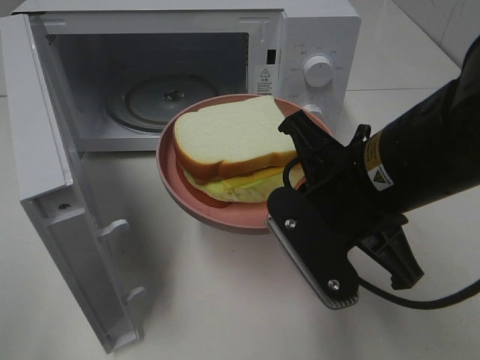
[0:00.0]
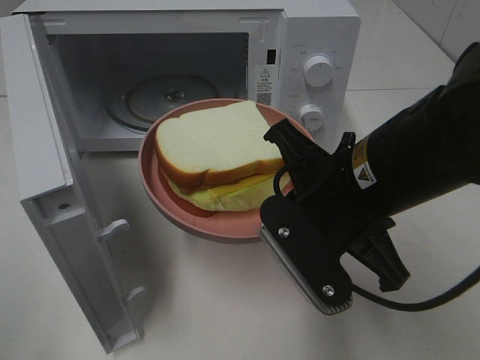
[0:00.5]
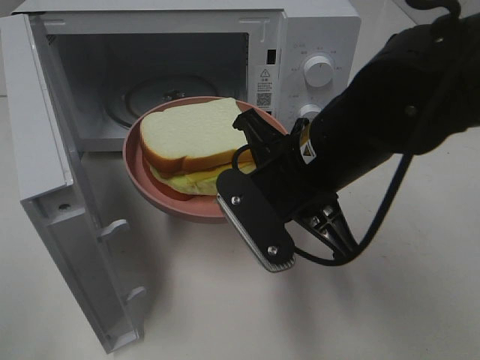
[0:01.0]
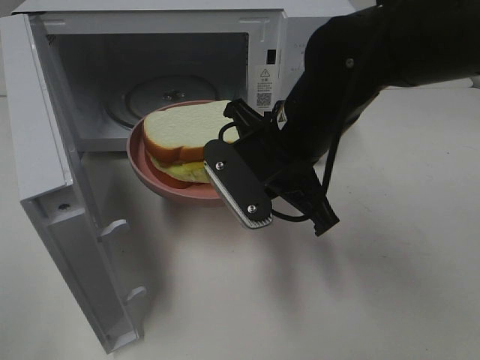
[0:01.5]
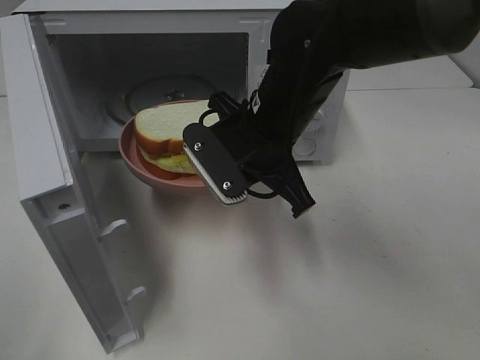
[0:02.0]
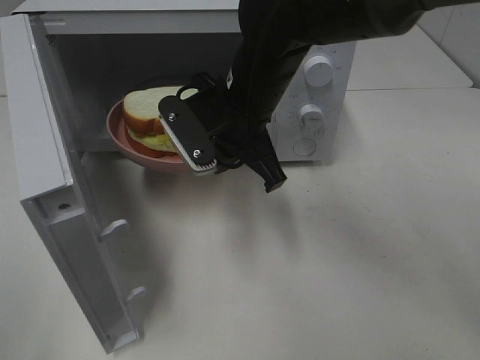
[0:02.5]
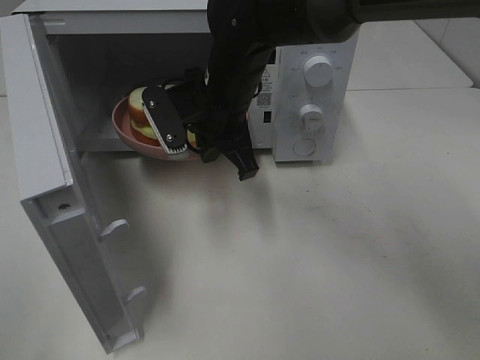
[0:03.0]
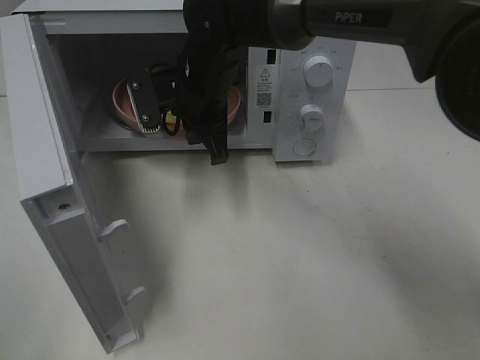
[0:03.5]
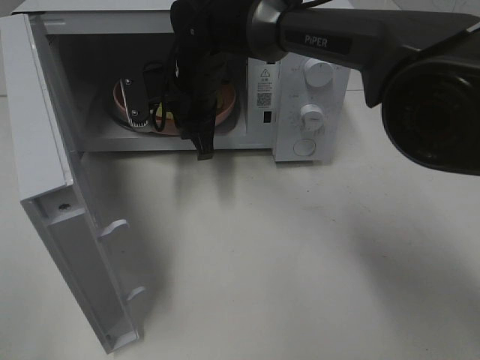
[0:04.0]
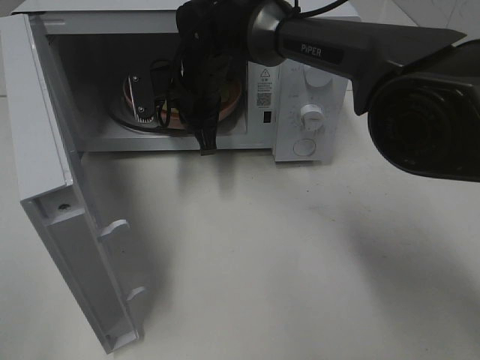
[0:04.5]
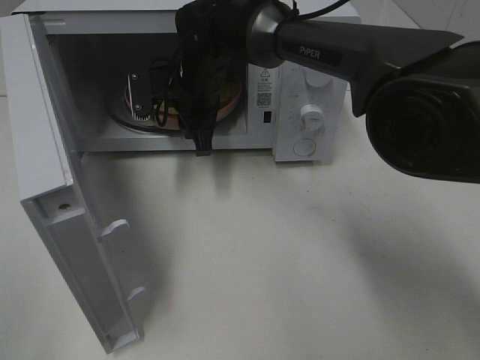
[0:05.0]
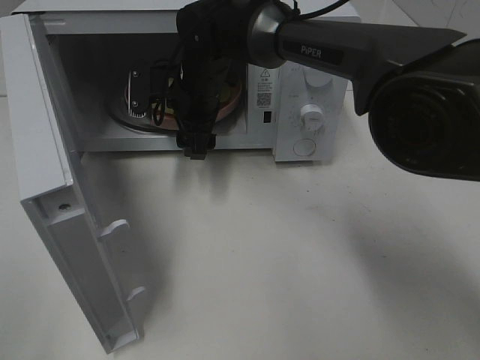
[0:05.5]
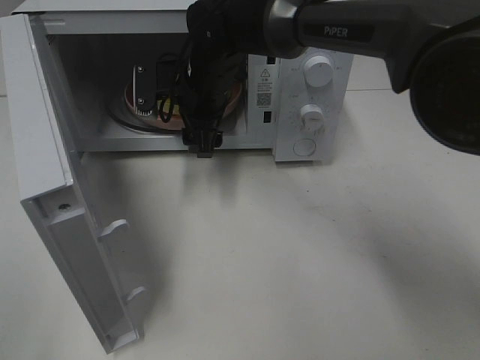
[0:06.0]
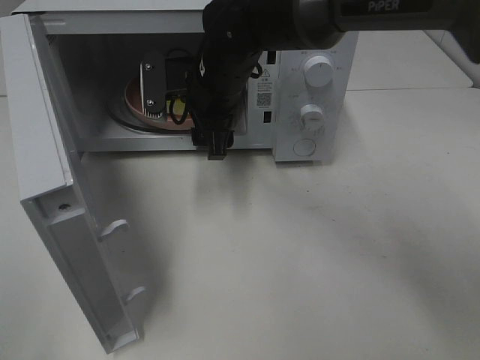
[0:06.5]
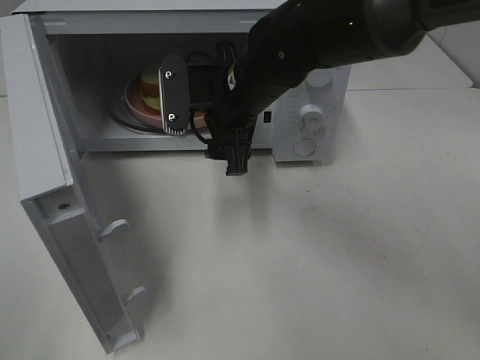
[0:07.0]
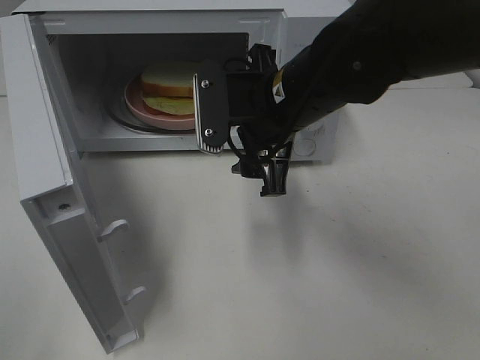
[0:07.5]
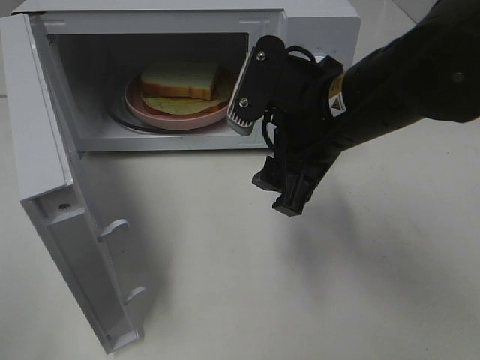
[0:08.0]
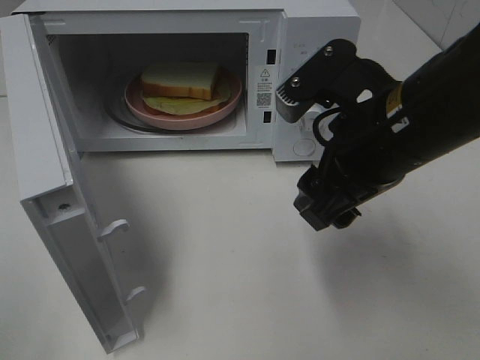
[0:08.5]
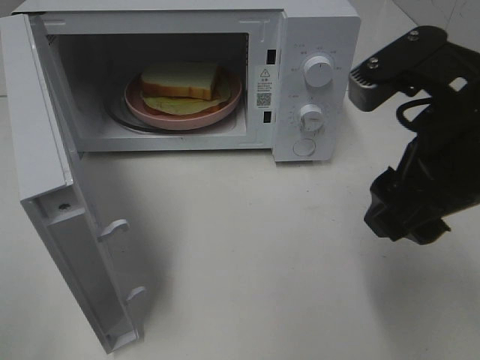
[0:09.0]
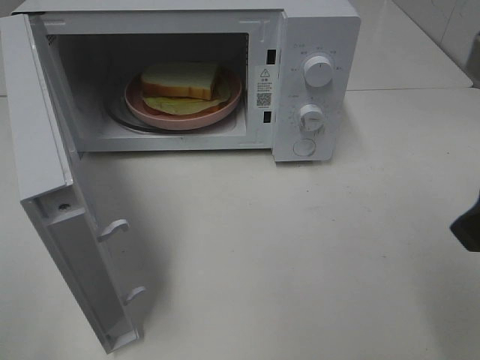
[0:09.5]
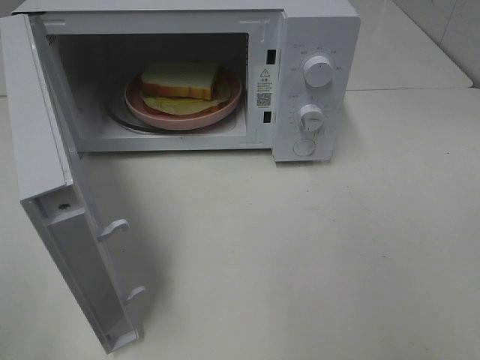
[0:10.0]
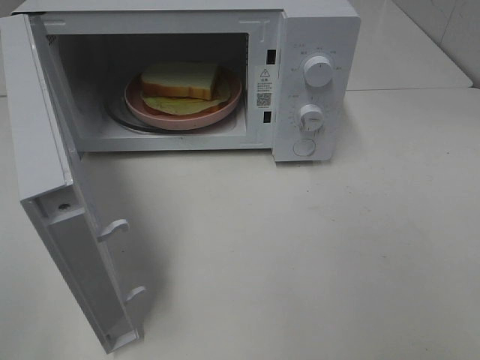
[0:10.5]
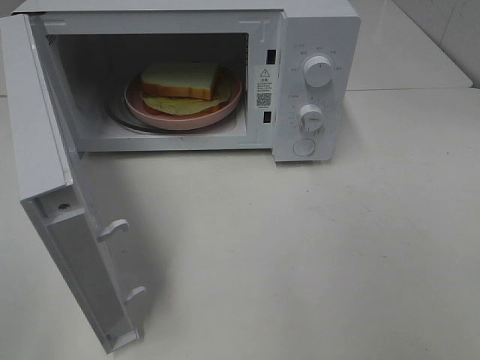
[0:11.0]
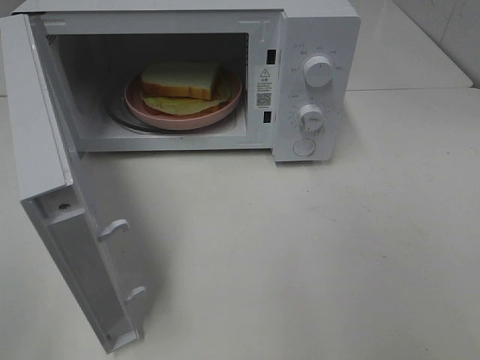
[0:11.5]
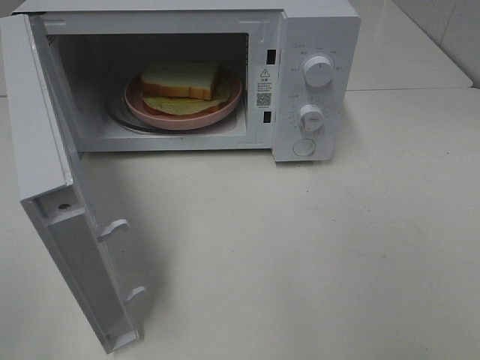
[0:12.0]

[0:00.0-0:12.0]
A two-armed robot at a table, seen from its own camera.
Task of the whole recording: Heat Sandwich.
Step, 0:00.0 to 0:06.0: Right hand: place the plate in the microwave.
0:00.0 to 0:02.0: The right gripper heads forward and to the left, covering roughly 15 cm.
0:02.0 to 0:04.0: The right gripper moves forward and to the left, approximately 15 cm.
0:04.0 to 0:06.0: The right gripper opens.
0:06.0 to 0:08.0: The right gripper moves backward and to the right, approximately 20 cm.
0:08.0 to 0:10.0: The right gripper is displaced backward, to the right and upward by some 30 cm.

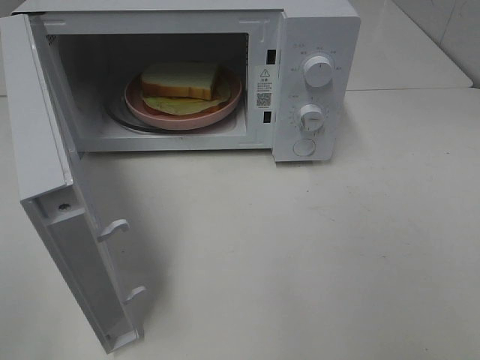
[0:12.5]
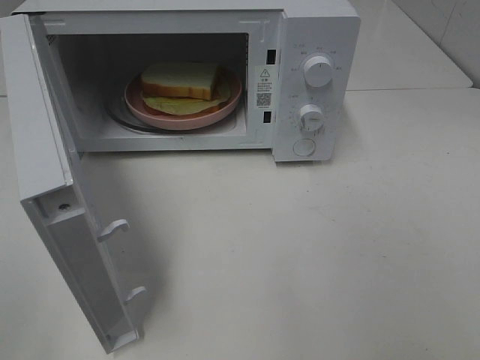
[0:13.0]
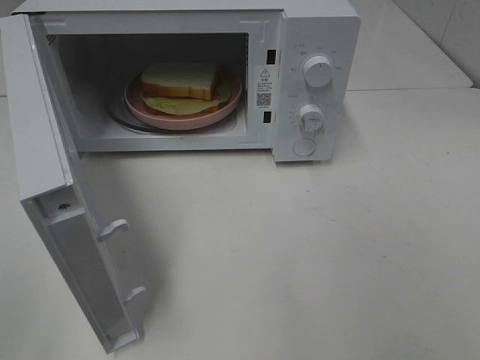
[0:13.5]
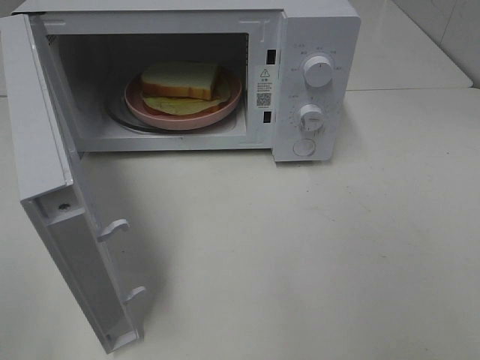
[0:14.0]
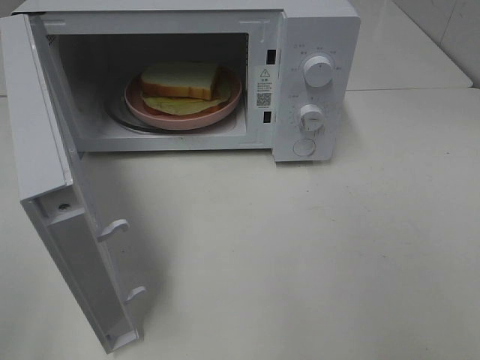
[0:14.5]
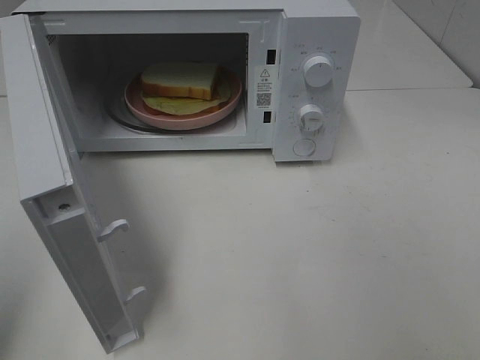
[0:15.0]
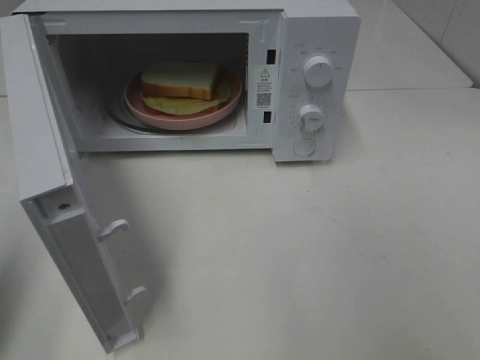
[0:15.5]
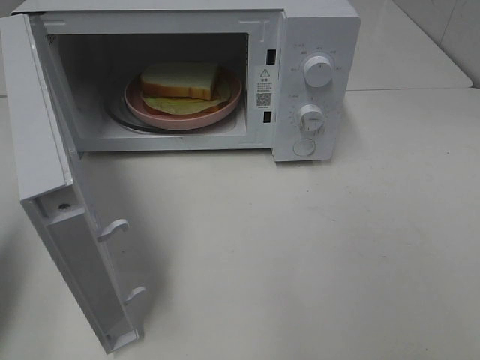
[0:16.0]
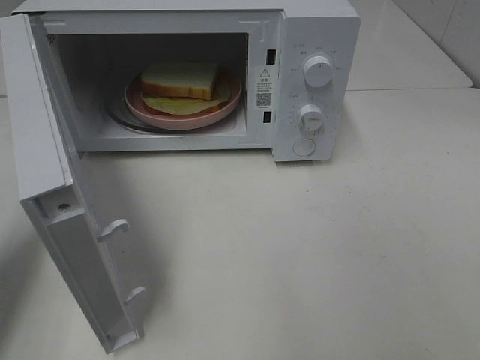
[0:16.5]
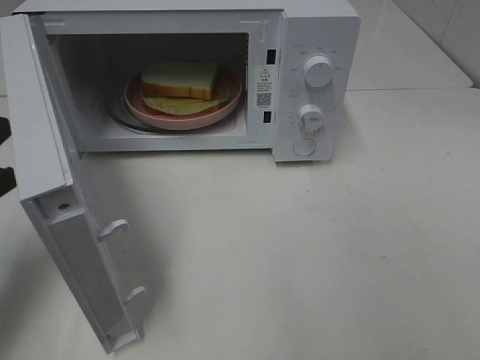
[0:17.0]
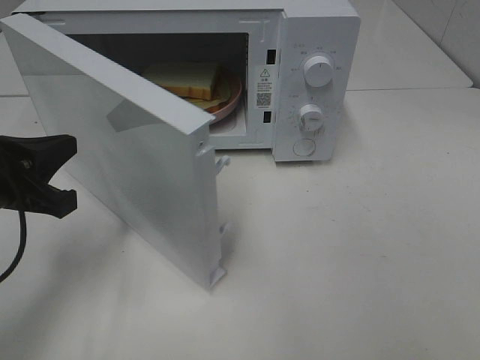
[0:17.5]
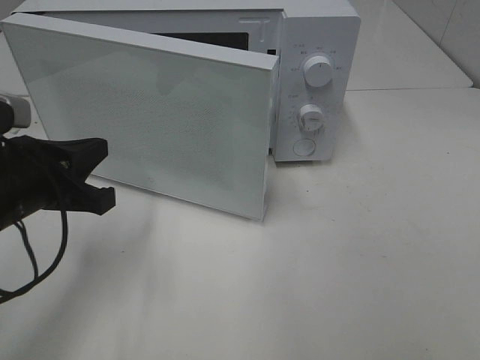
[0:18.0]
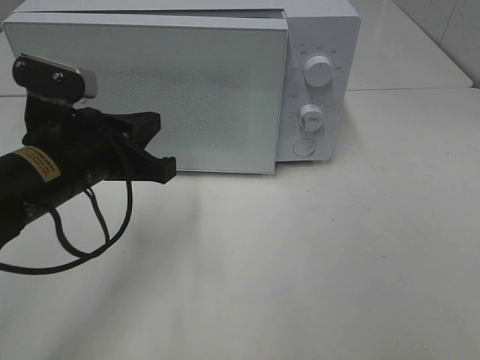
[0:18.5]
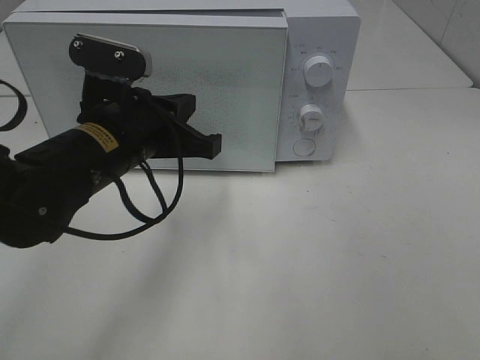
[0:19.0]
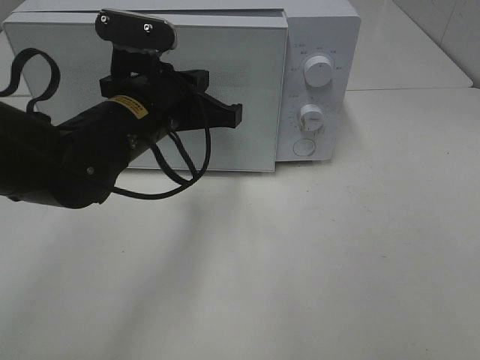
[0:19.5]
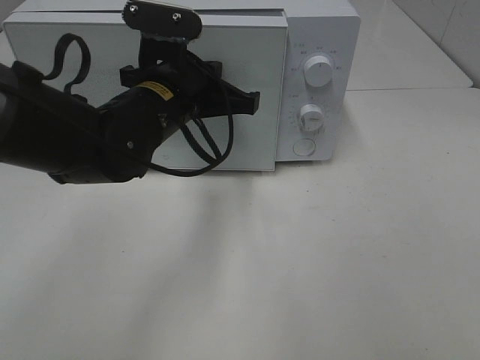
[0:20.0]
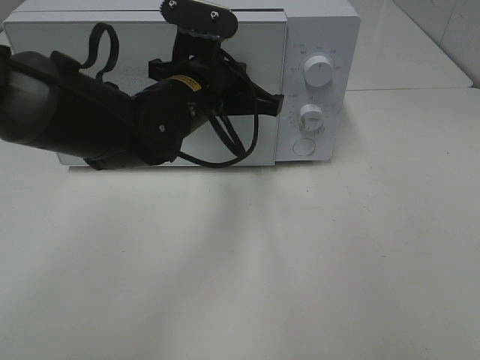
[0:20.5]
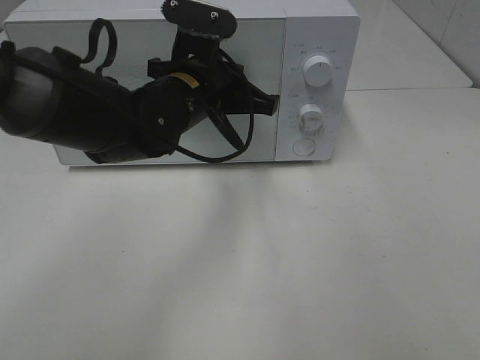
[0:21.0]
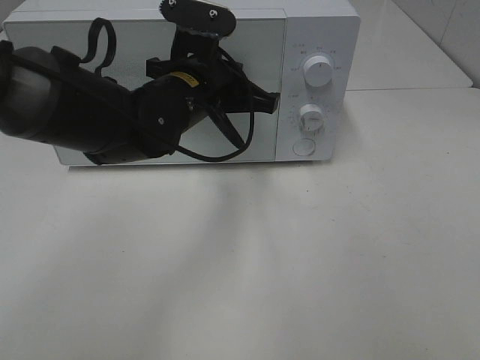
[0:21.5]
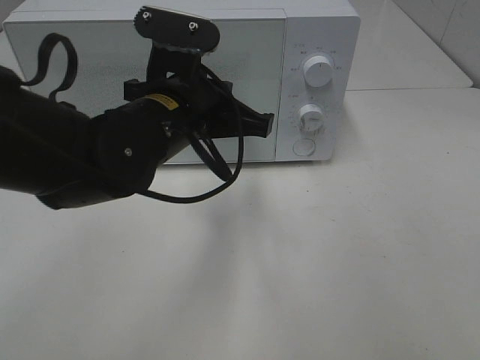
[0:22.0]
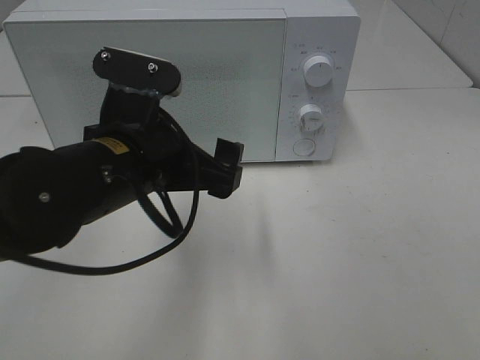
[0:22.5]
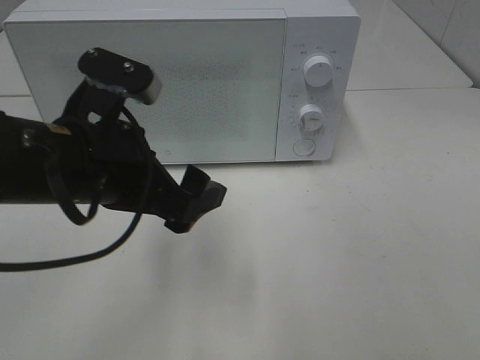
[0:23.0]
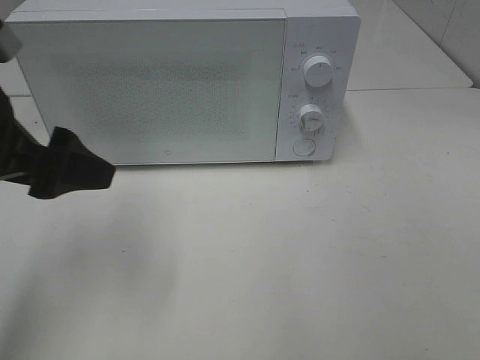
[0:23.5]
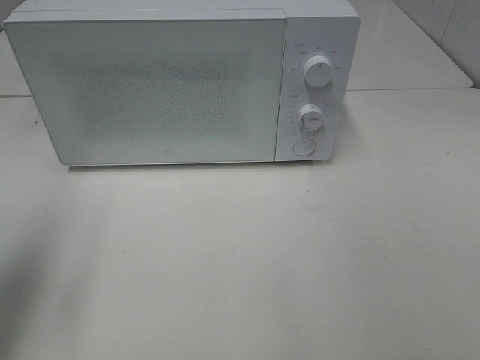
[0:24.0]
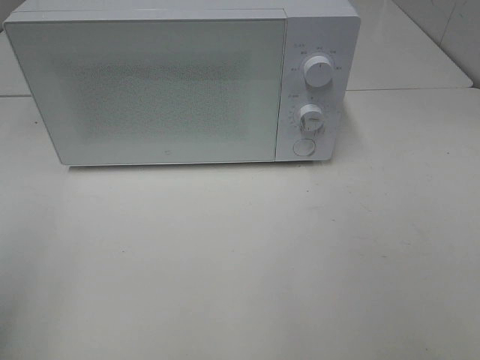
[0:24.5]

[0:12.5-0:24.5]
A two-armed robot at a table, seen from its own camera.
Task of the whole recording: Heat Sandwich.
Step, 0:12.5 to 0:21.5: Left hand: close the microwave door.
0:14.5 to 0:16.5: The left gripper heads forward and downward, covering approximately 20 cm, and closes its fingers.
0:16.5 to 0:18.5: The left gripper goes some 15 cm to the right.
0:18.5 to 0:20.5: The left gripper moves to the right and forward, some 15 cm.
0:20.5 to 0:22.5: The left gripper goes approximately 10 cm backward, and opens up.
0:22.5 to 0:24.5: The left gripper goes approximately 25 cm to the left and backward.

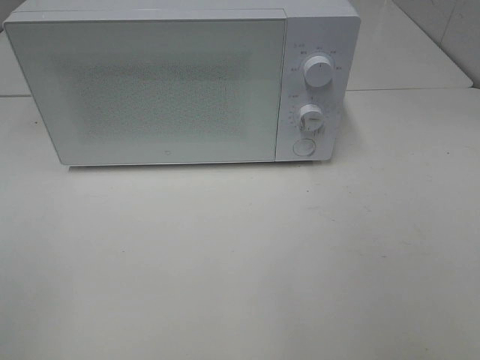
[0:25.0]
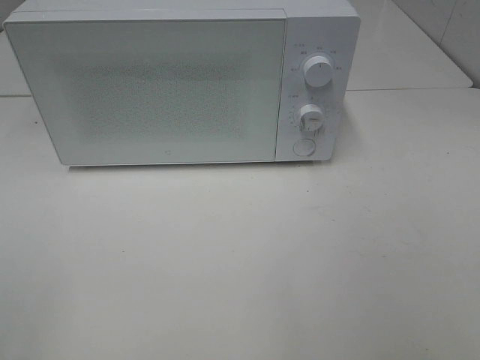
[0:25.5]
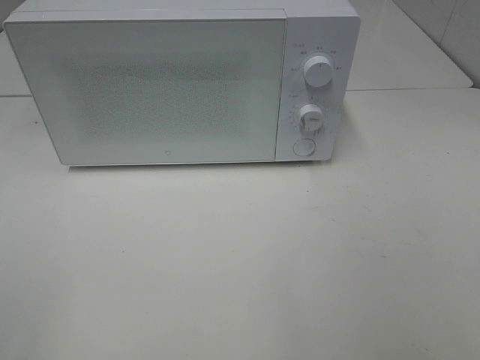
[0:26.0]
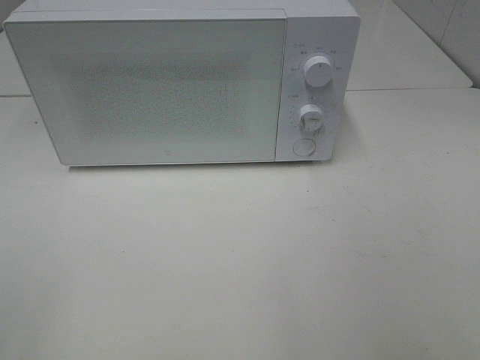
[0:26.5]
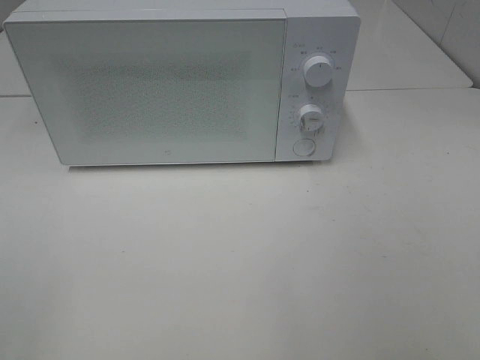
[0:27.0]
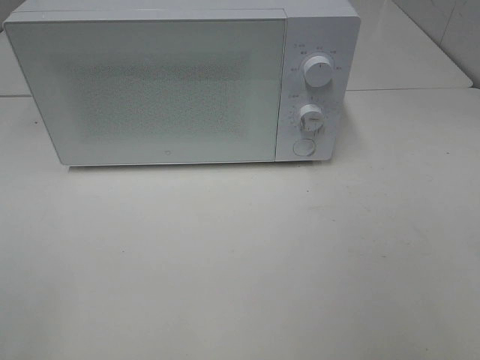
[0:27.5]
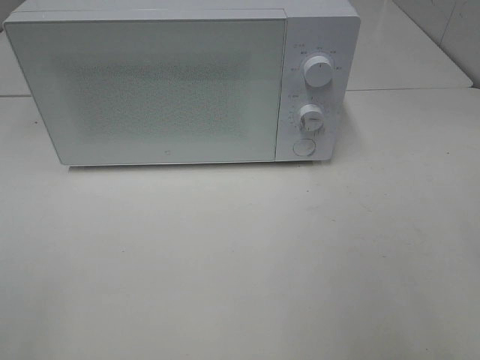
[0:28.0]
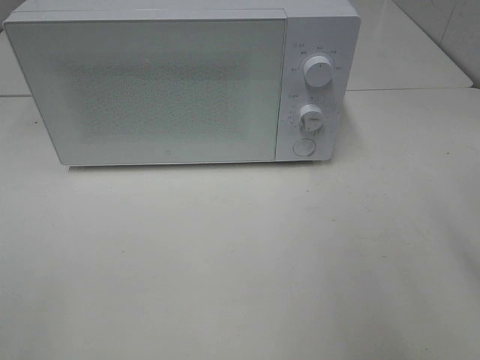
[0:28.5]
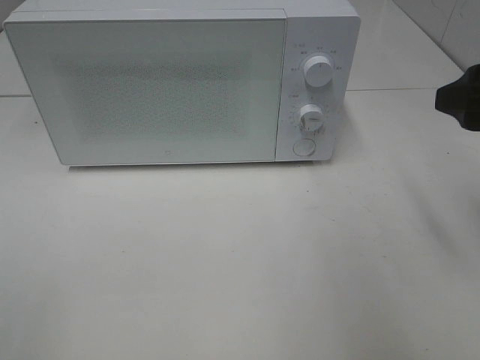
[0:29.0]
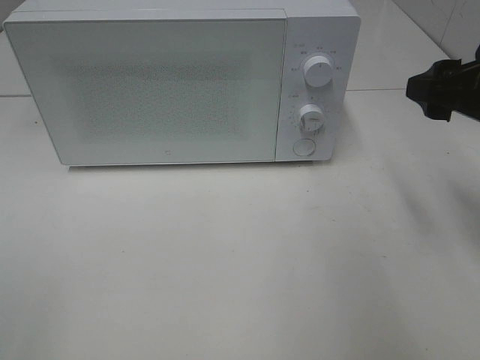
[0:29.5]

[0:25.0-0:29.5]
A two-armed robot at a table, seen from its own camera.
Task of the whole recording: Heat Sandwich.
0:27.0 to 0:29.5: The right gripper heads forward, covering about 25 cm.
